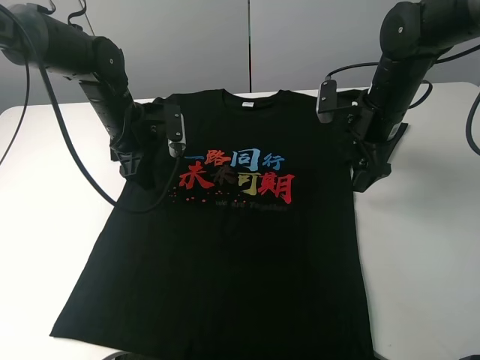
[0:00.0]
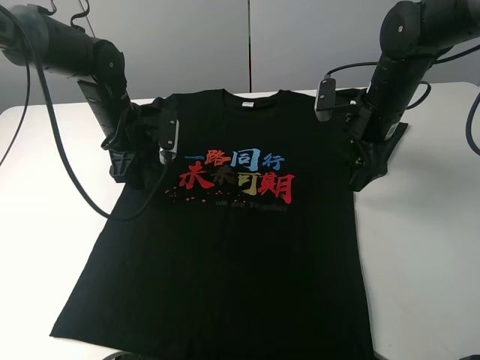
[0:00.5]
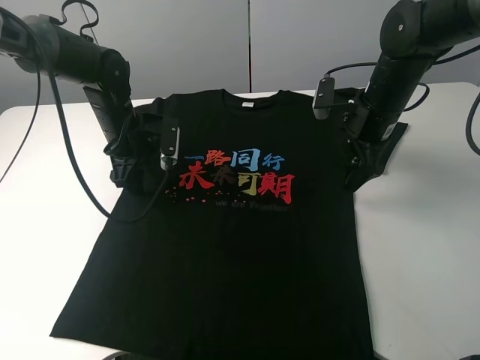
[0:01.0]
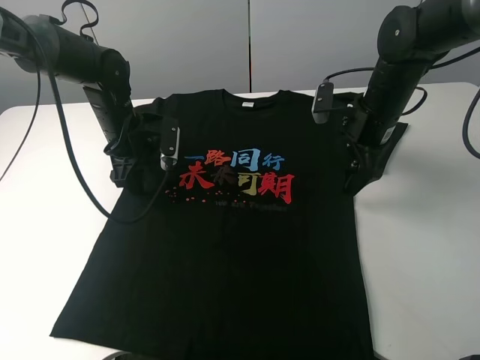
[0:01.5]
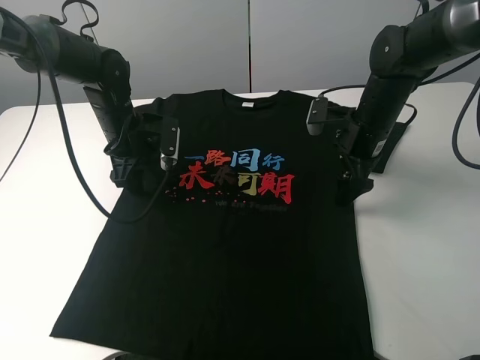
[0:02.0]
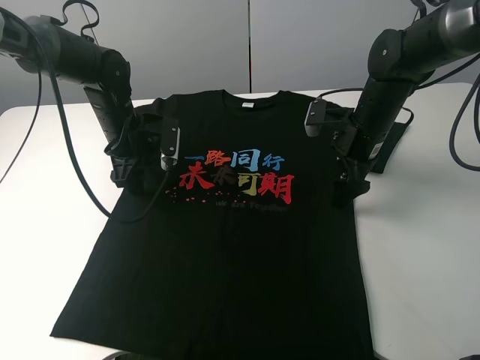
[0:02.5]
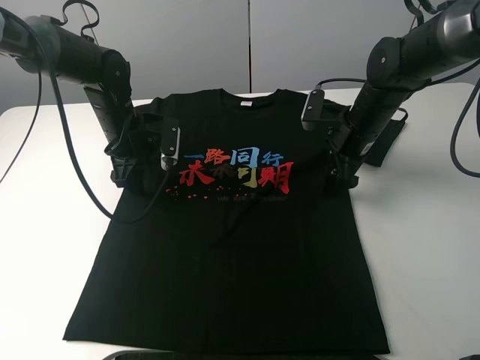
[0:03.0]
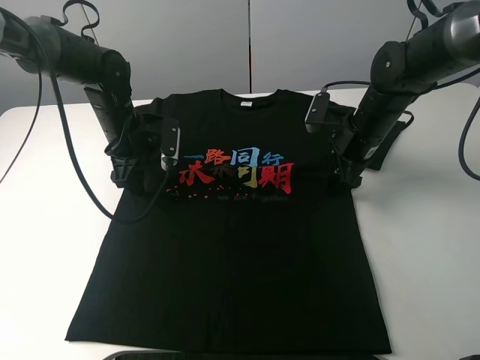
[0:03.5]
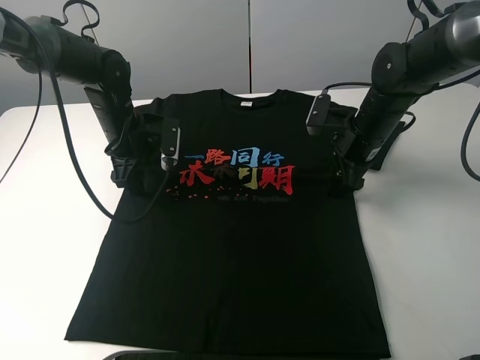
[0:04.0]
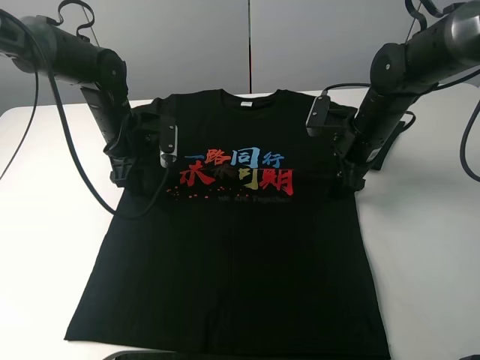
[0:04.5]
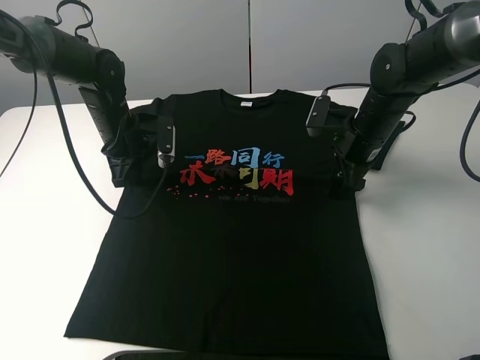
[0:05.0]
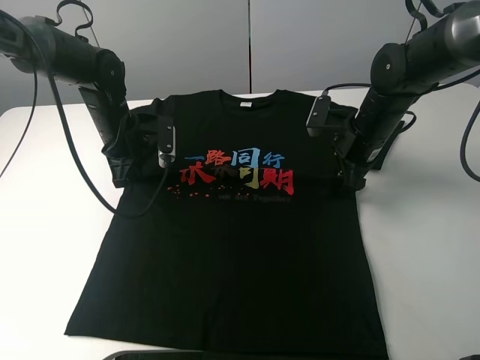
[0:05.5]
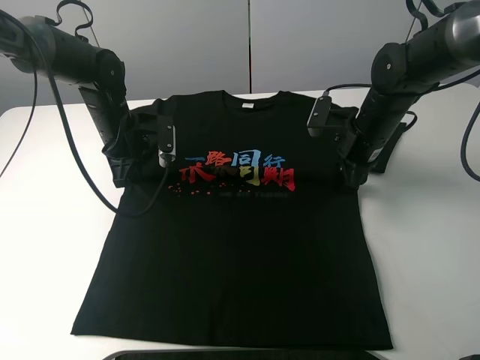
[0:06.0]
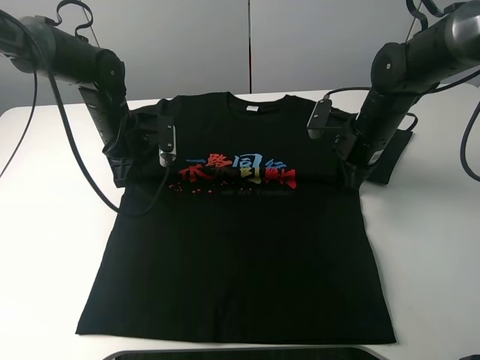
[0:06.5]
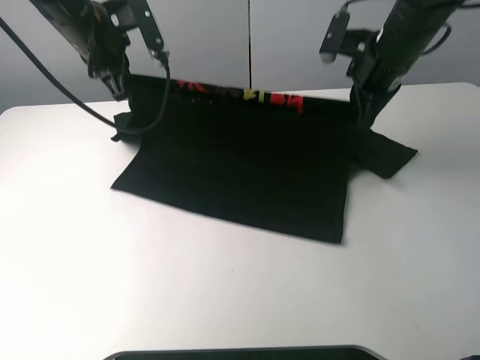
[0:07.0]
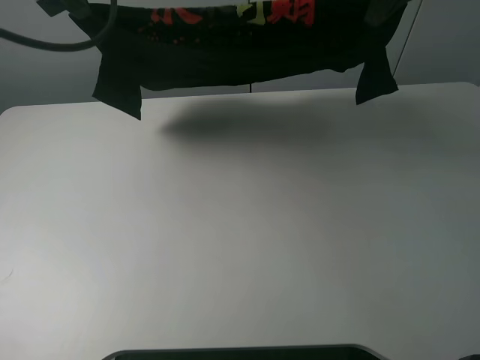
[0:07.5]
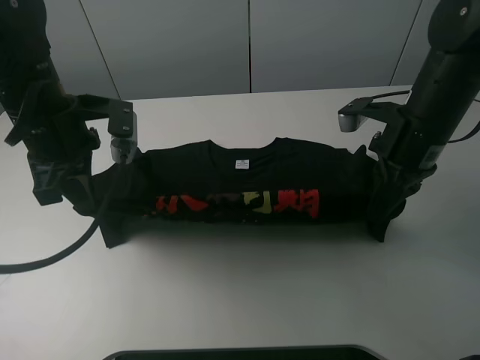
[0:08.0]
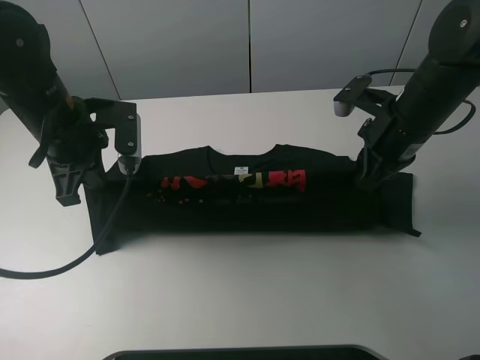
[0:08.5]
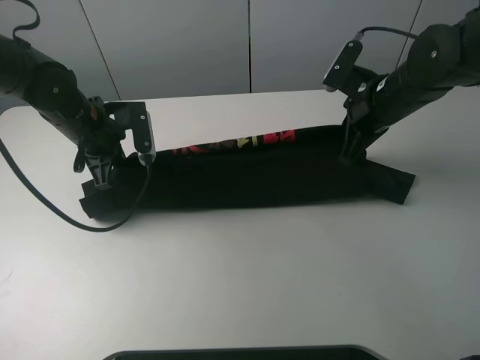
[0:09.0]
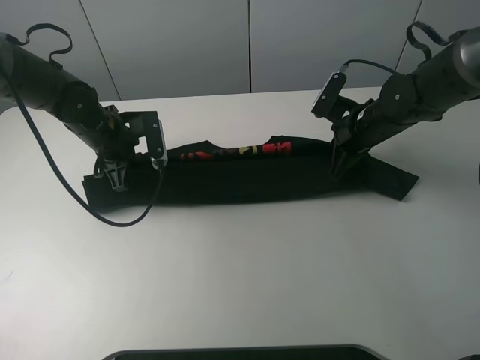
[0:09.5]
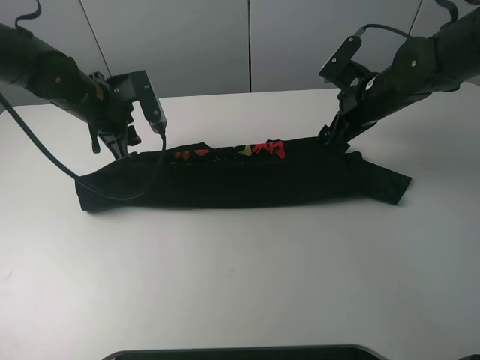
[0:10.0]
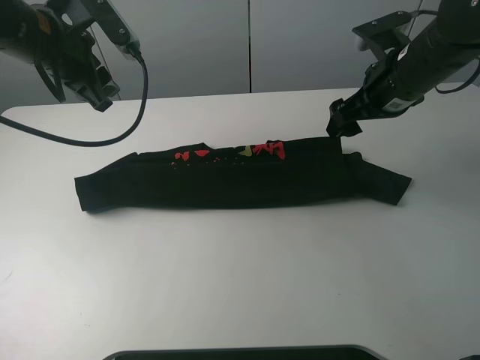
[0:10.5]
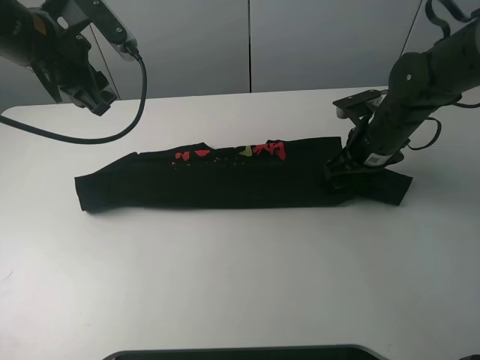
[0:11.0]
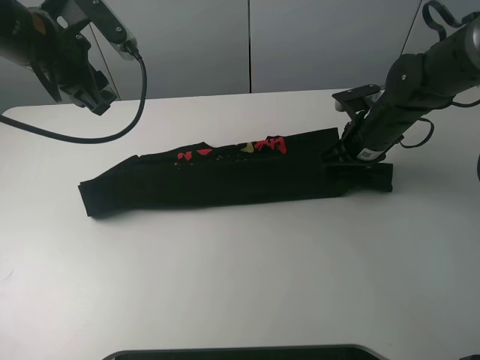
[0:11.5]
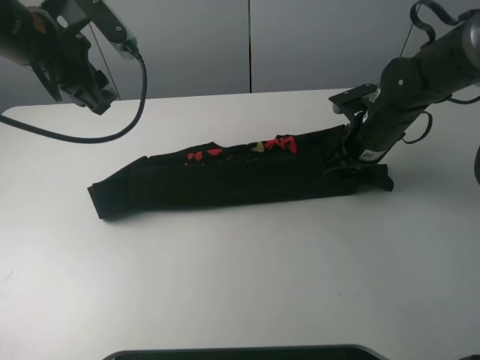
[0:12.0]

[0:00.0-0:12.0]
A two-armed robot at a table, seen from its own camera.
Task of the whole recording: fold the clothes on the table.
Step, 0:00.0 to 0:06.0: Lift the black T-shirt with the left gripper.
Step, 0:06.5 to 0:09.5: Fold the black T-shirt downward with the left gripper.
Step, 0:10.5 to 0:11.5: Grasp the black T-shirt with the right gripper.
0:00.0 to 0:04.0: The grippers make only small movements.
0:04.0 to 0:06.0: The left gripper closes its fingers; the right gripper closes up.
0:06.0 to 0:08.0: The right gripper goes approximately 10 cm upward and backward, and closes. Meanwhile the left gripper shifts about 15 cm backward and upward.
0:08.0 to 0:10.0: The grippers both shift forward by approximately 10 cm. The left gripper opens. Meanwhile the right gripper opens its fingers.
0:10.0 to 0:12.0: The left gripper is displaced upward by roughly 10 cm. The right gripper shifts by approximately 5 cm, and closes its fingers.

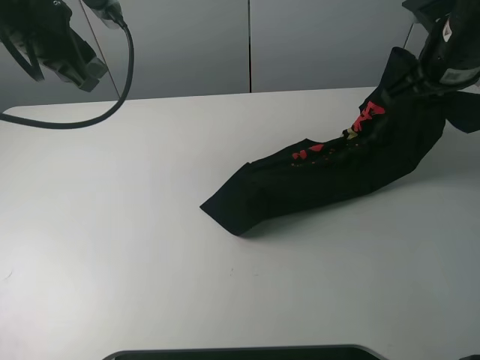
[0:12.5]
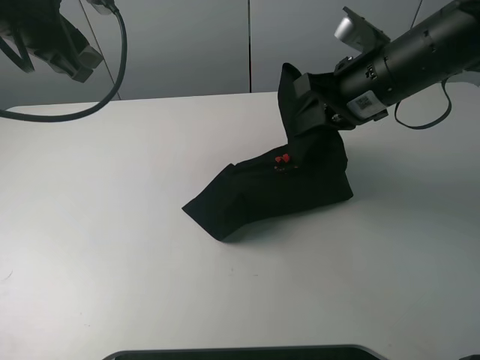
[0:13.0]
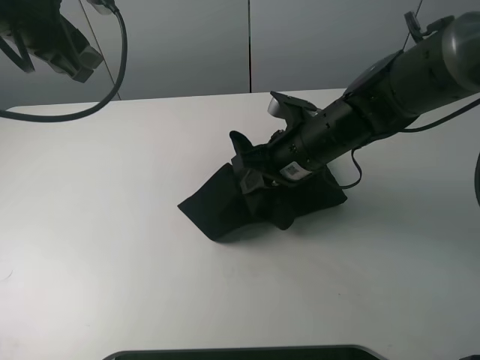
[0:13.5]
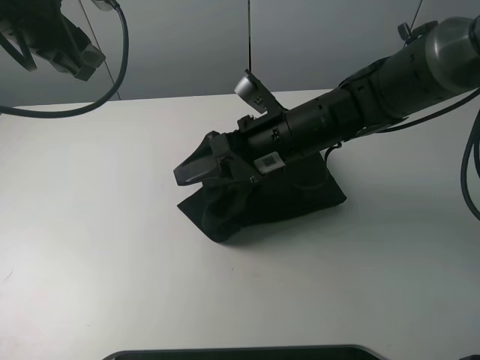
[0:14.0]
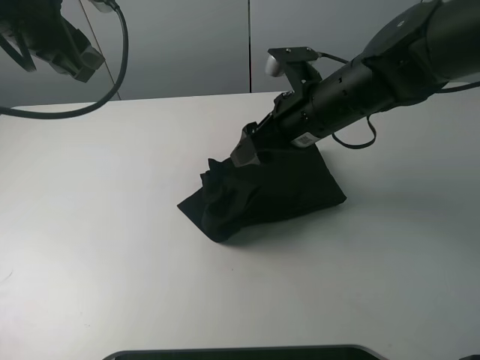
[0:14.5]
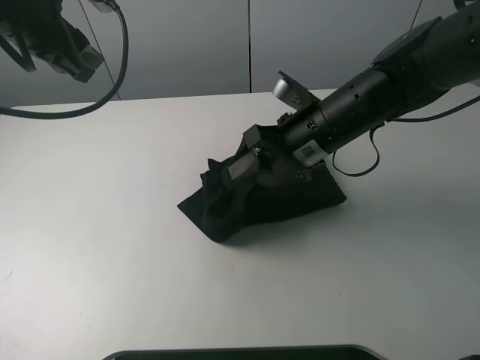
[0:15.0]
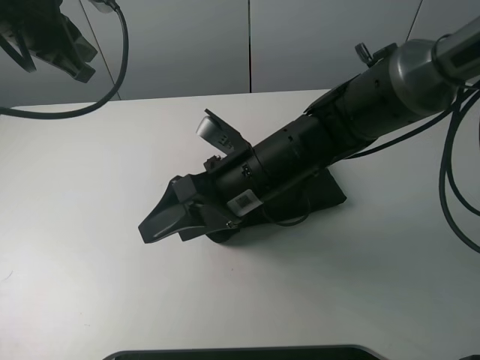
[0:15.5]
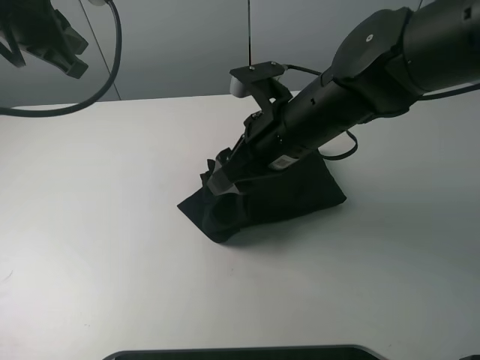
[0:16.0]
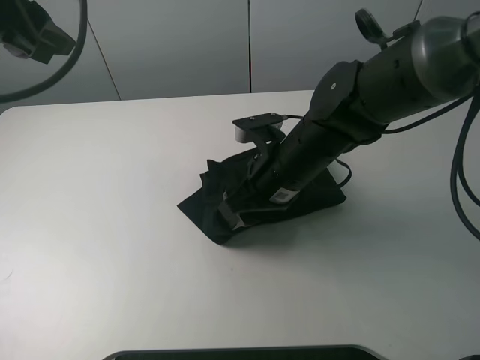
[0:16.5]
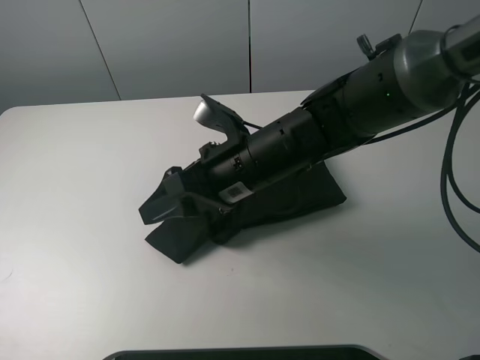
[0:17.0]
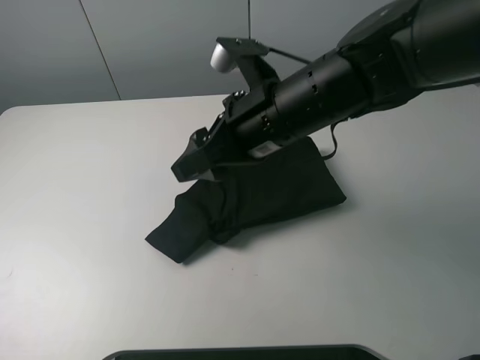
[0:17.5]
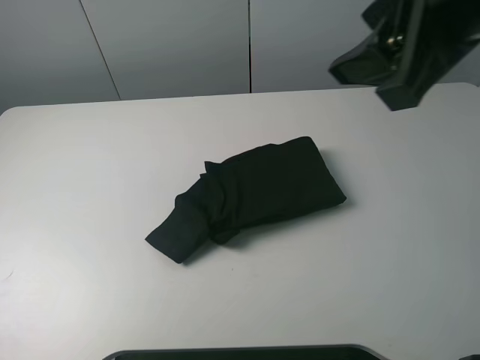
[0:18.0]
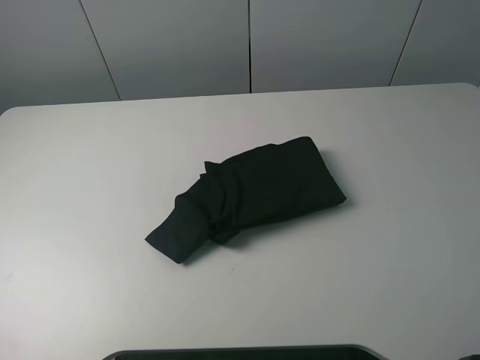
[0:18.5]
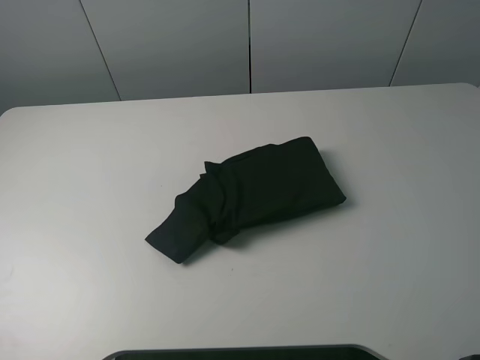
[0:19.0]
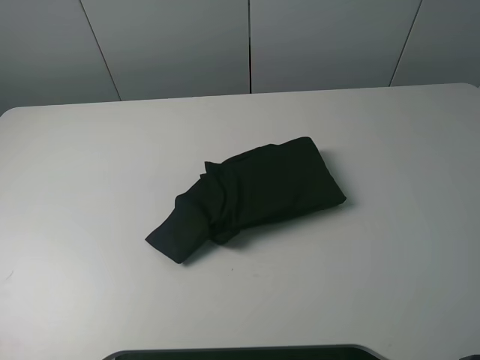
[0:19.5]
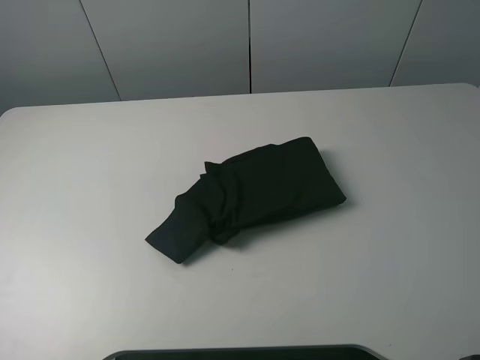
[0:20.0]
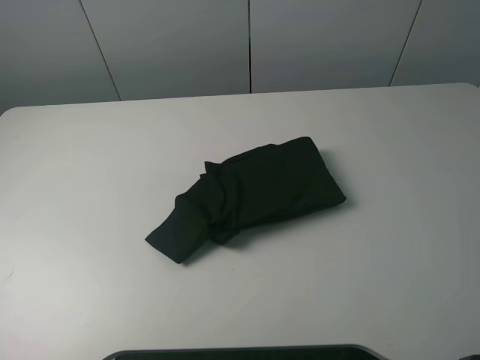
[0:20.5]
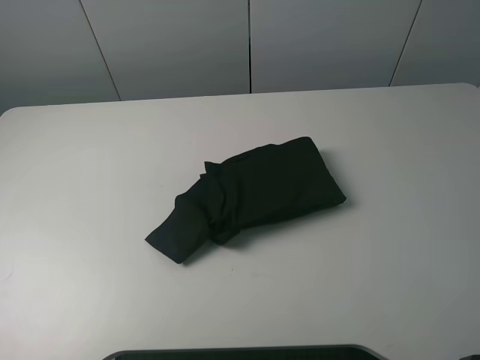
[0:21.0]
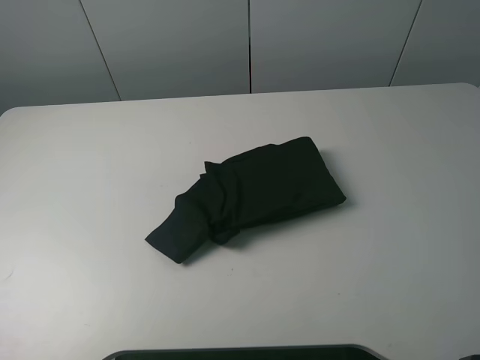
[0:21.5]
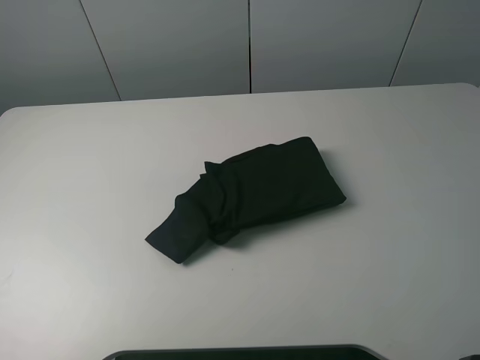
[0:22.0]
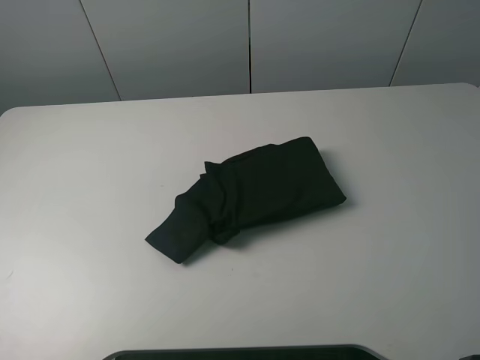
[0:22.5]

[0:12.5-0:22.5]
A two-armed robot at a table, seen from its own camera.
Task of the whole recording: fold the clothes on the table.
Step, 0:12.5 to 0:17.5: Fold the black T-shirt from right to left with right gripper.
0:12.5 to 0:14.5: The right gripper moves to the left and downward, some 15 cm, and opens up.
0:14.5 to 0:16.5: The left gripper ends up roughly 5 cm from where it was, and closes, then opens again. Meanwhile the right gripper heads downward, covering about 5 cm.
0:16.5 to 0:18.5: The left gripper shifts roughly 30 cm backward and to the left, while the right gripper shifts approximately 40 cm upward, to the right and backward.
0:20.5 to 0:22.5: Both grippers stay about where they are.
